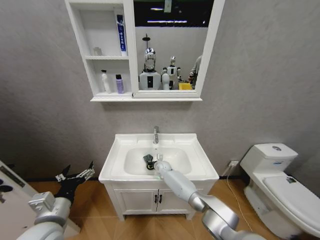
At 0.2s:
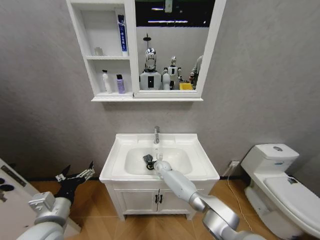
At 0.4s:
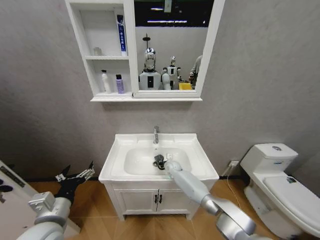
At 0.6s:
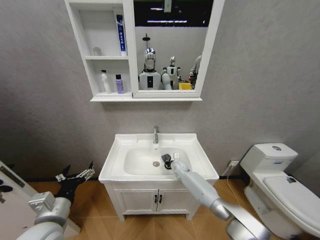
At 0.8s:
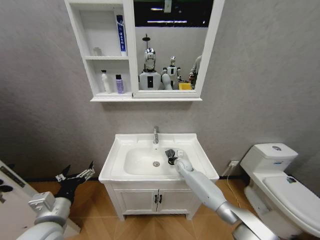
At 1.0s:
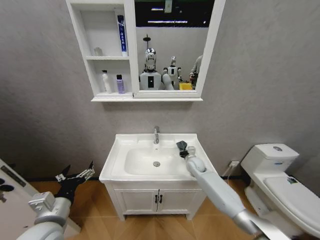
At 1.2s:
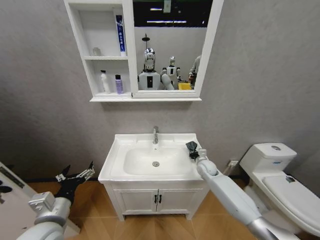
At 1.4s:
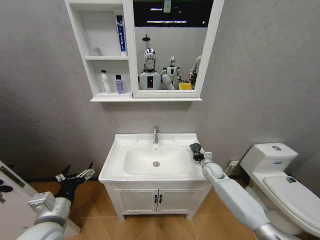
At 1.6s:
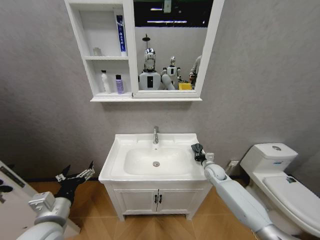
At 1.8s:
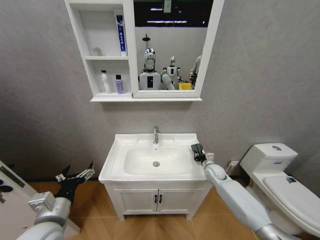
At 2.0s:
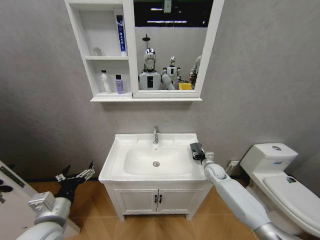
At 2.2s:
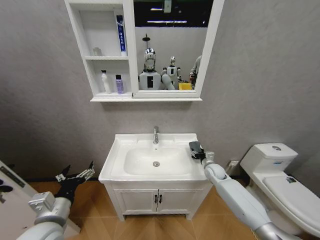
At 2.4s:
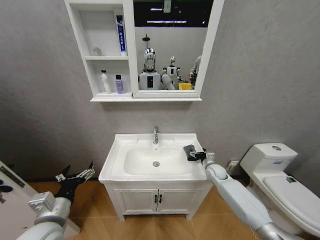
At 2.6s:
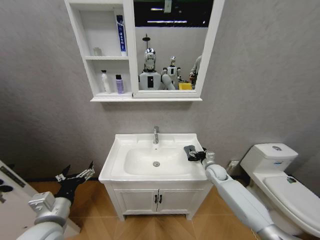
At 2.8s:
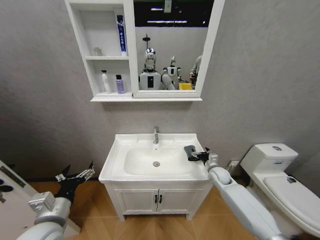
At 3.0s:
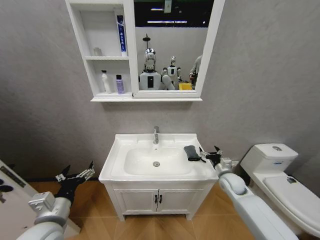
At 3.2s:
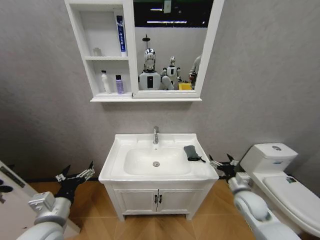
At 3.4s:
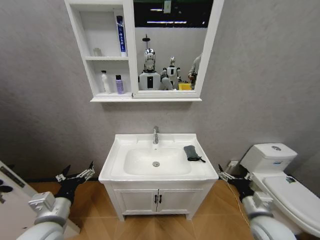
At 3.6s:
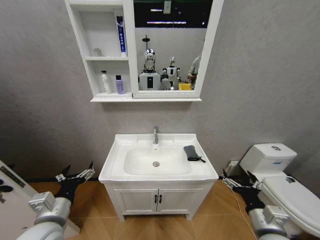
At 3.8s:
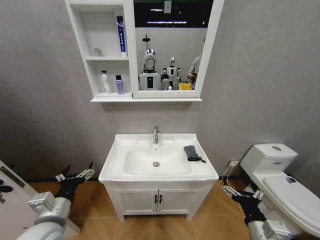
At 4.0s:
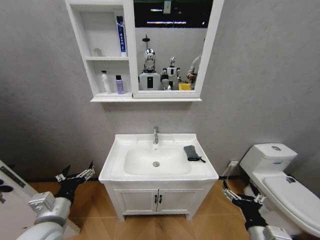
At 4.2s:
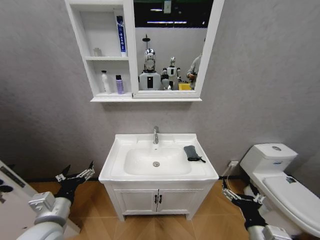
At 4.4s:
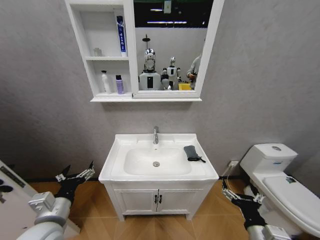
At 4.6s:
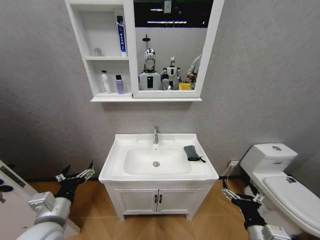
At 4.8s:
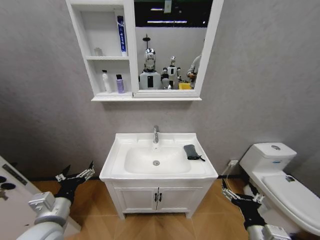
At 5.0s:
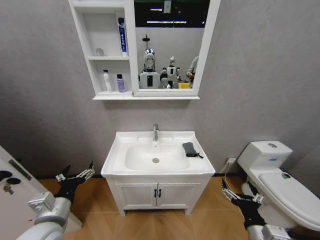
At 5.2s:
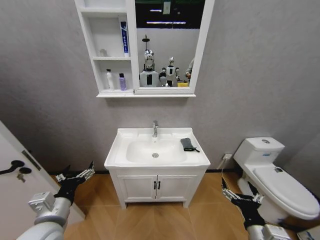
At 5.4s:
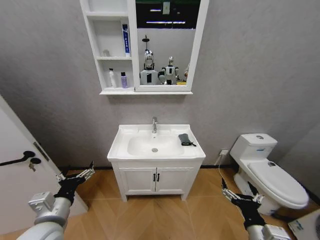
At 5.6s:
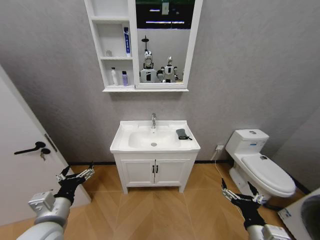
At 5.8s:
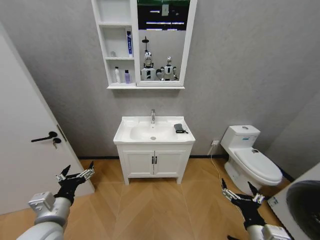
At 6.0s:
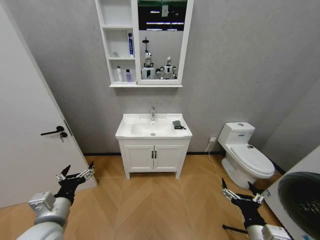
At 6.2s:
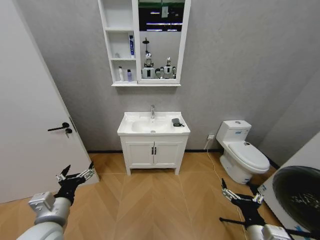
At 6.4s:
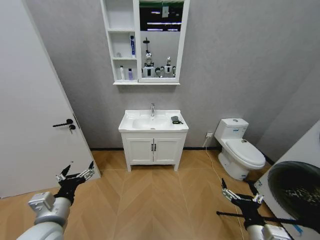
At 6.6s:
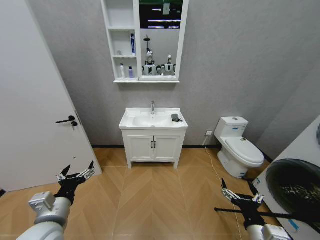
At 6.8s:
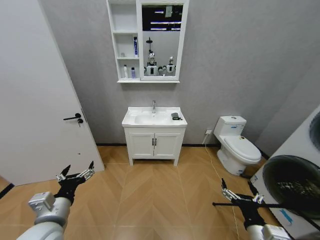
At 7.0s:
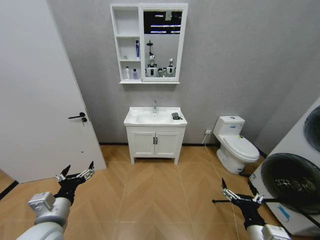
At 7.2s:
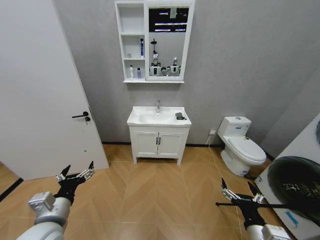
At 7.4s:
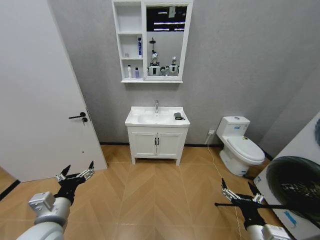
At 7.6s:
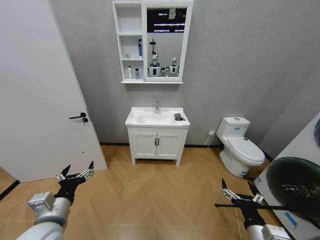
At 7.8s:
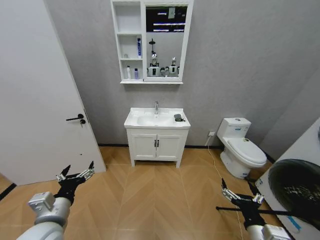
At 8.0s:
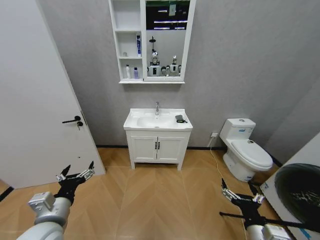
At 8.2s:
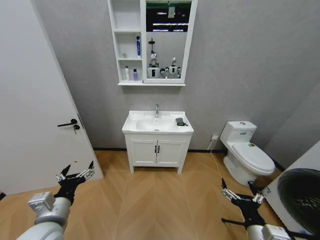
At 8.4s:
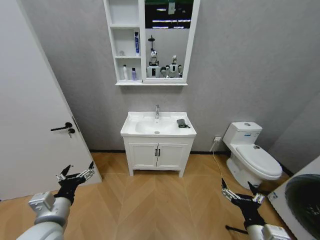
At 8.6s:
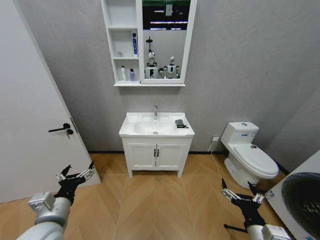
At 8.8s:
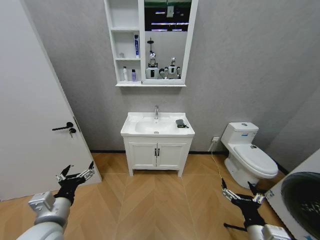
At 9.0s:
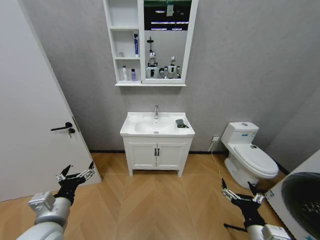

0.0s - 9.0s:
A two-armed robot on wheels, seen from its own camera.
Task of the whole recording: Move facial cleanser and shampoo from washbasin to cabinet, then wipe washbasin with towel.
0.0s - 1.6s: The right gripper goes approximately 25 cm to the right.
1.6s - 3.0s: The right gripper goes roughly 10 cm backward, and opens up.
3.0s - 4.4s: The right gripper is displaced backward by approximately 25 cm.

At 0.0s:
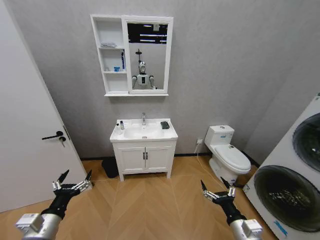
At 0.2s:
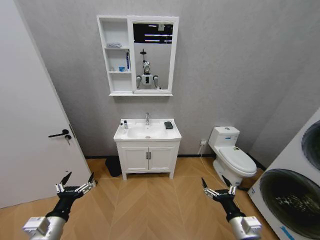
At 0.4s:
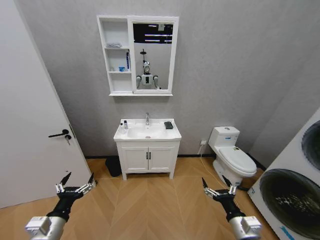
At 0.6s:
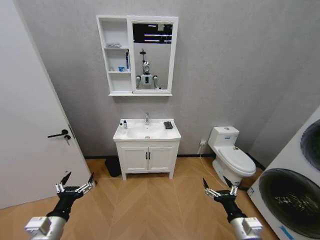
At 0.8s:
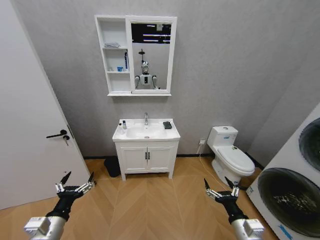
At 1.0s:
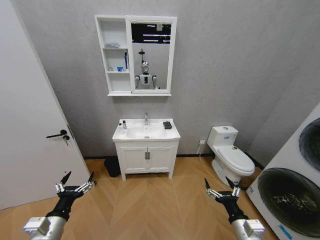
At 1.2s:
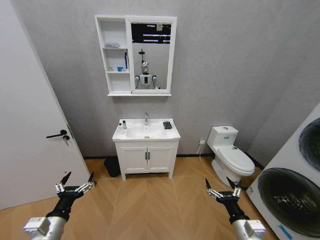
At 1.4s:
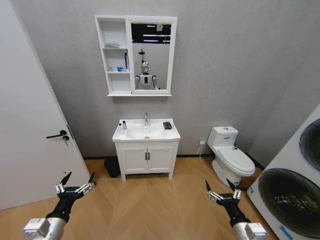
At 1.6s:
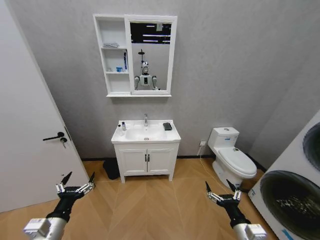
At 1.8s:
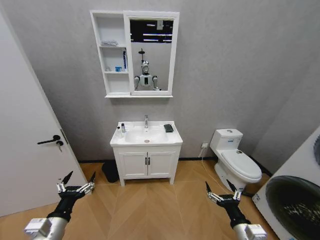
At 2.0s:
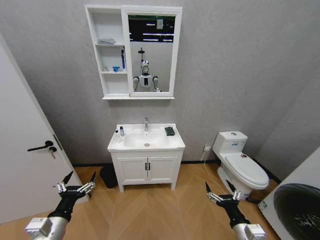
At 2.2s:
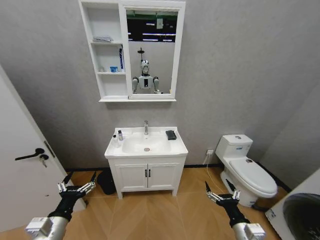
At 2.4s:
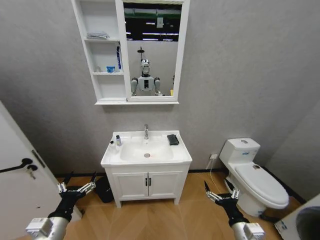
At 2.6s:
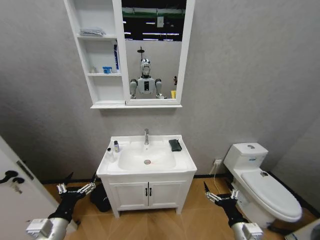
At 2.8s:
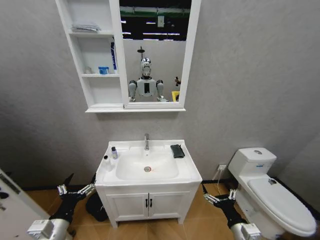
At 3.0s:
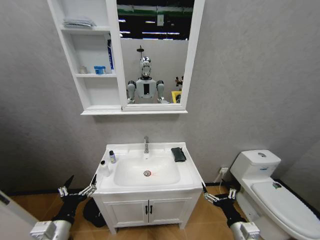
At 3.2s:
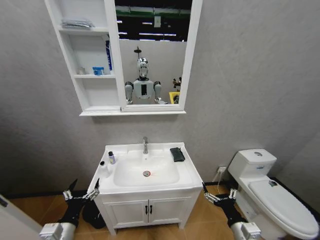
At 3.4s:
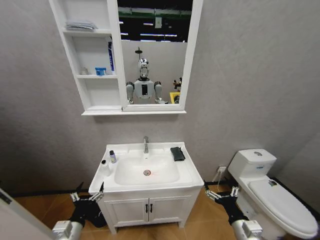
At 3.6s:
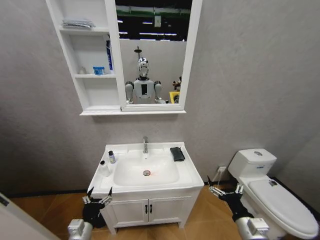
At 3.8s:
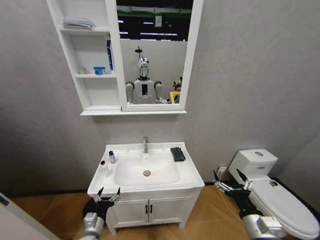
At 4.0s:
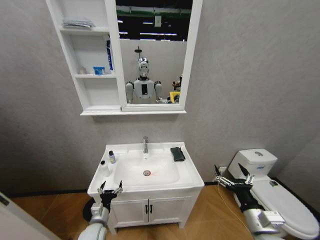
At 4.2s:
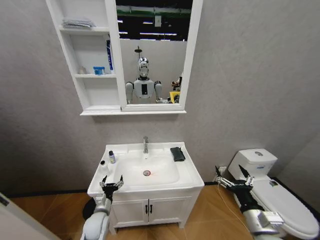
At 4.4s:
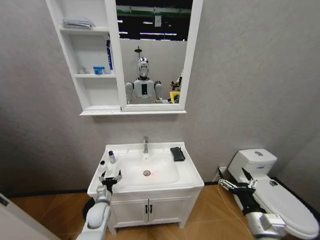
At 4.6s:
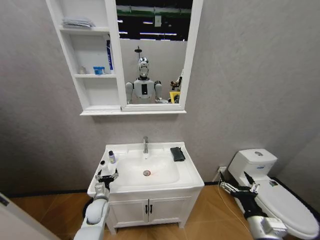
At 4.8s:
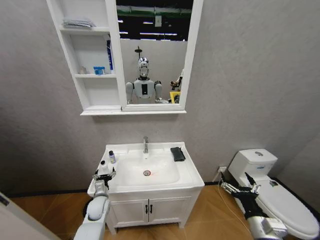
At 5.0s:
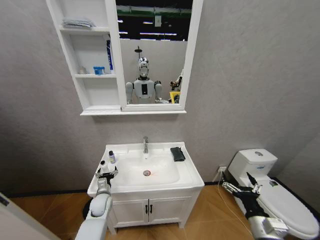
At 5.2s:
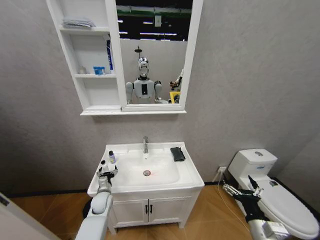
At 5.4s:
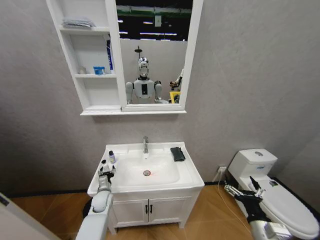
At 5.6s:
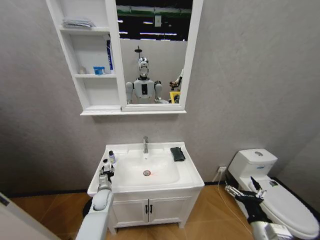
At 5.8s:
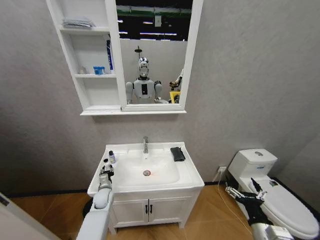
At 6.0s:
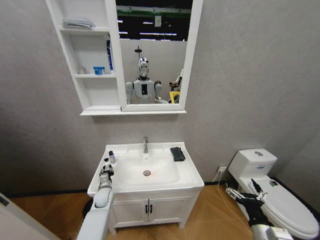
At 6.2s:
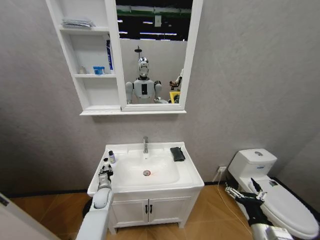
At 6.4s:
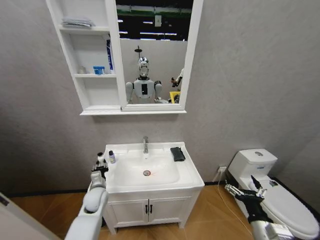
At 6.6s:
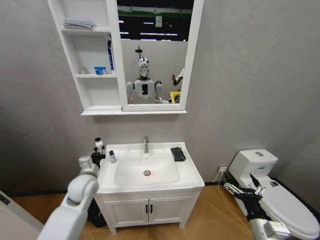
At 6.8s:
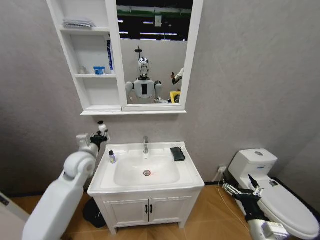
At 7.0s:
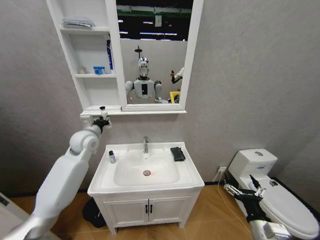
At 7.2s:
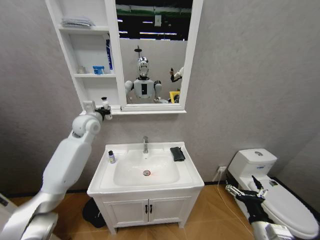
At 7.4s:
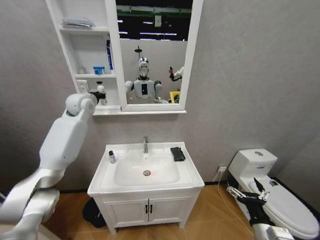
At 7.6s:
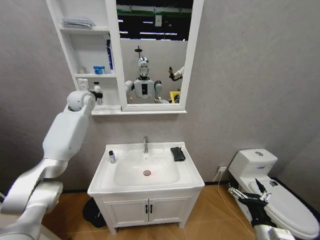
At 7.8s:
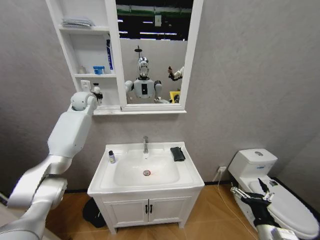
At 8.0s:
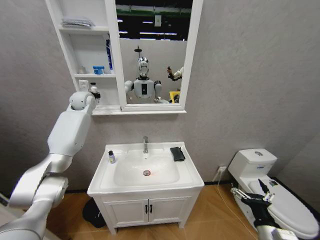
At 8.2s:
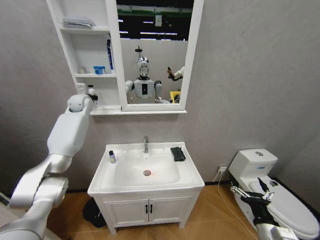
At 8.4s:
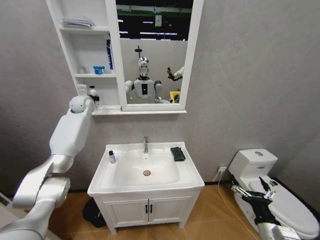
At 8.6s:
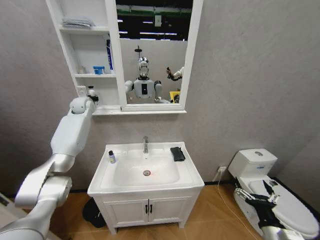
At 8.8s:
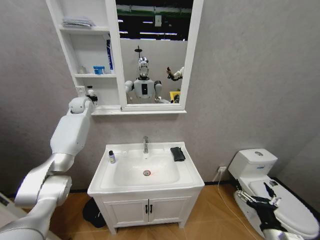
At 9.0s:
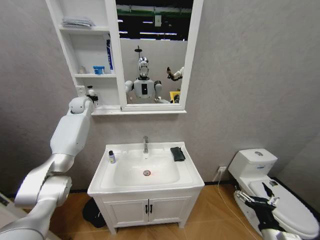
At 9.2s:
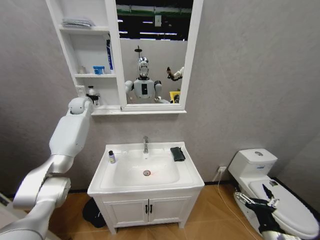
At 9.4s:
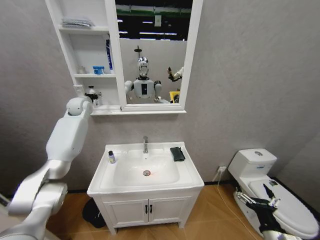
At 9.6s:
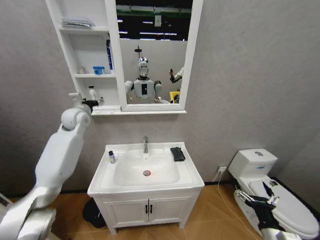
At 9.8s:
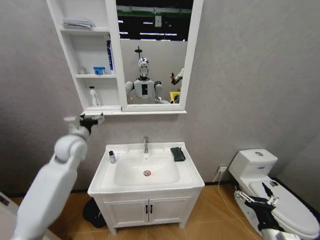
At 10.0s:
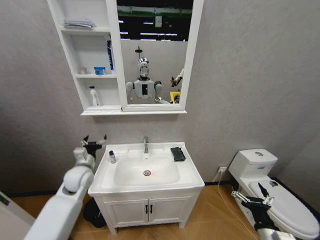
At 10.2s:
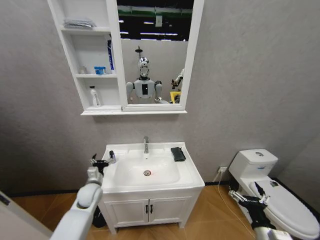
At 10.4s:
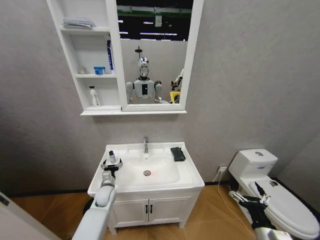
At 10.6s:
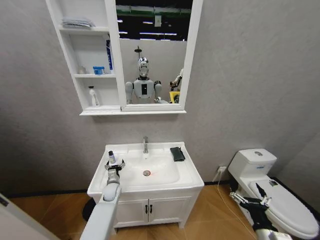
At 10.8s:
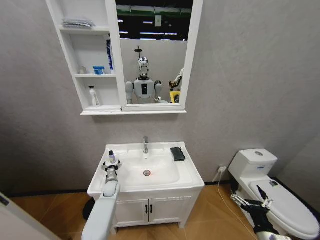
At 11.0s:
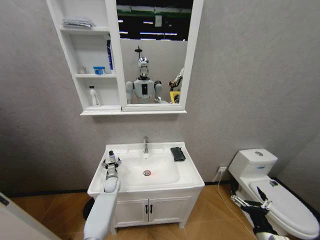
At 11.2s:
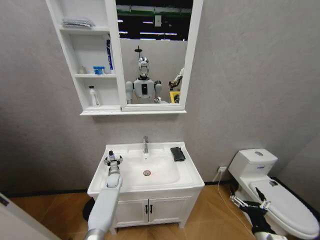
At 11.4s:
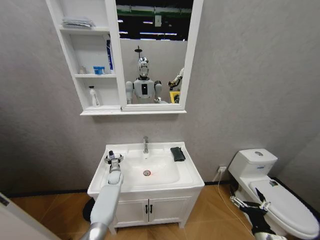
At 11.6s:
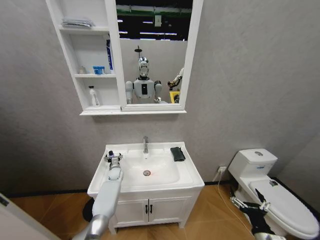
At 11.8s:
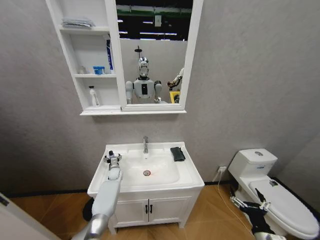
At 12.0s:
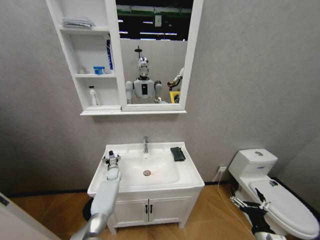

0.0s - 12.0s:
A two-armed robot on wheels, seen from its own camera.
Task of the whole recording: Move facial cleanser and shampoo from washbasin to cabinet, then wipe washbasin with towel.
3.0s - 4.4s: The left gripper travels forward and downward by some 20 cm; the right gripper goes approximately 5 cm upward.
4.4s - 6.0s: The left gripper shifts about 10 cm forward, and closes up.
6.0s - 7.6s: The left gripper heads upward, covering approximately 50 cm.
7.6s - 9.0s: The left gripper changes place by about 5 cm.
9.0s - 10.4s: The left gripper travels downward and backward by approximately 50 cm, and opens its fingers.
10.4s - 12.0s: The left gripper is displaced forward by some 15 cm.

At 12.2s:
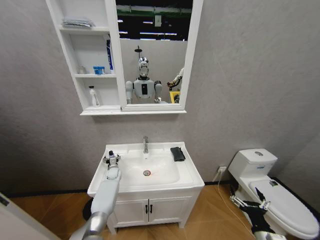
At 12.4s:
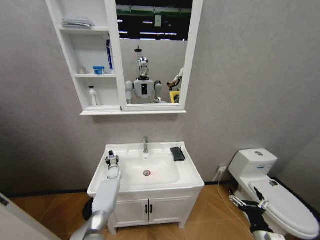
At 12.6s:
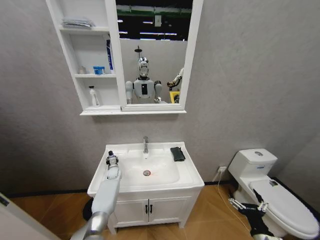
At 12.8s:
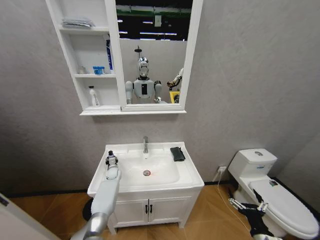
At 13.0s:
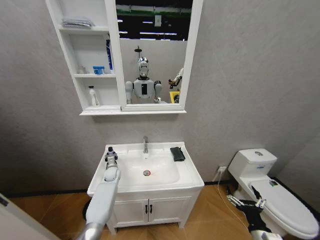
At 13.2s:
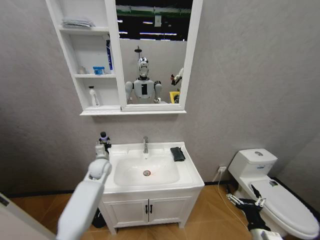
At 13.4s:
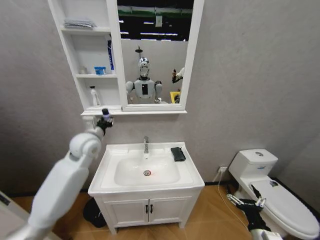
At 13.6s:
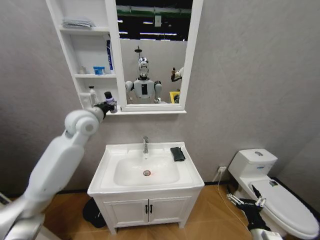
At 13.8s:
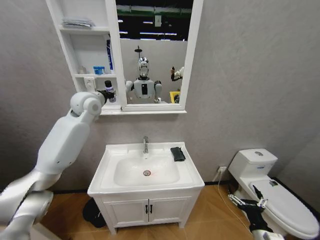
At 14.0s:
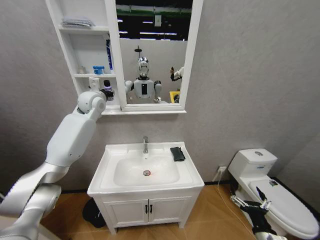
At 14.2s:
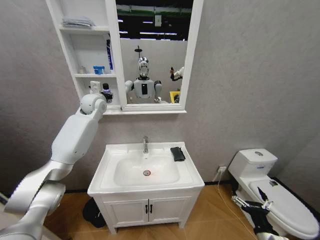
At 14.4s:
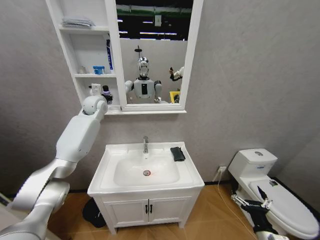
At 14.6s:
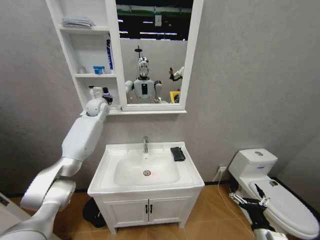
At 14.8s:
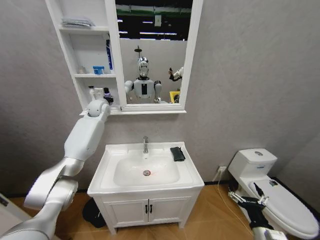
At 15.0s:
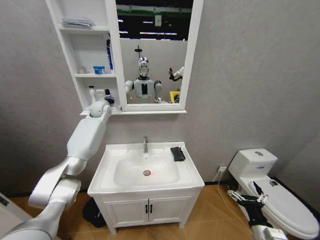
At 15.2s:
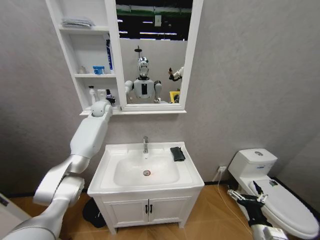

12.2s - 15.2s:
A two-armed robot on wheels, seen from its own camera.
Task of the whole recording: Move facial cleanser and shampoo from washbasin to cabinet, then wipe washbasin with towel.
12.2s - 13.8s: The left gripper shifts some 50 cm upward, and closes its fingers.
13.8s - 15.2s: The left gripper shifts roughly 15 cm forward and downward.
